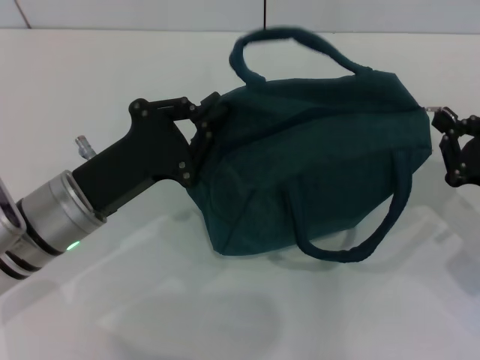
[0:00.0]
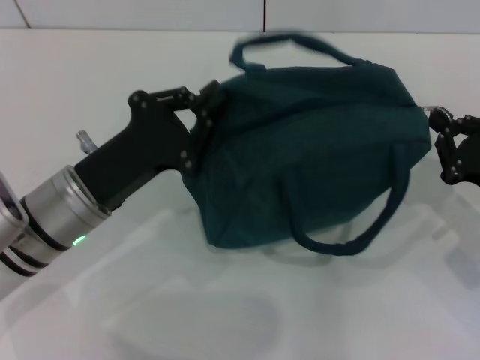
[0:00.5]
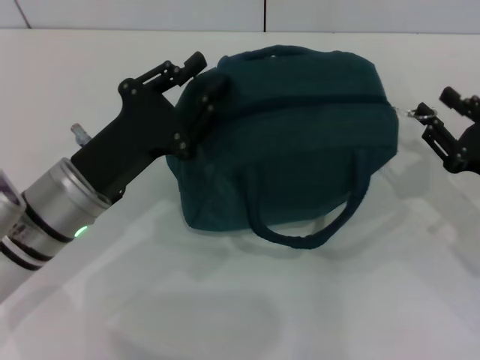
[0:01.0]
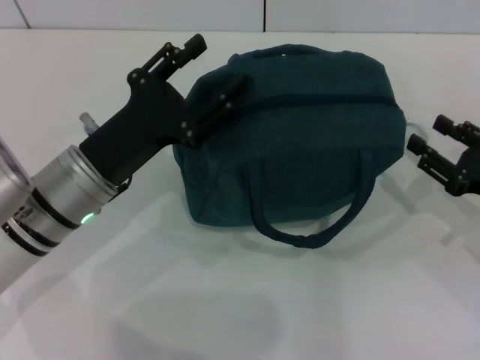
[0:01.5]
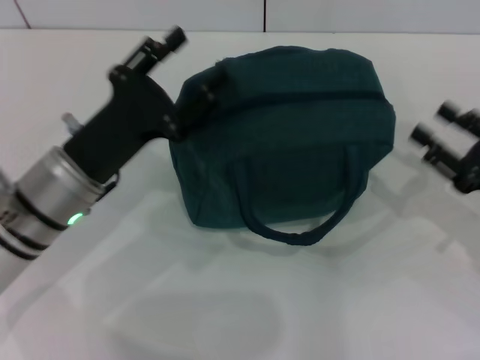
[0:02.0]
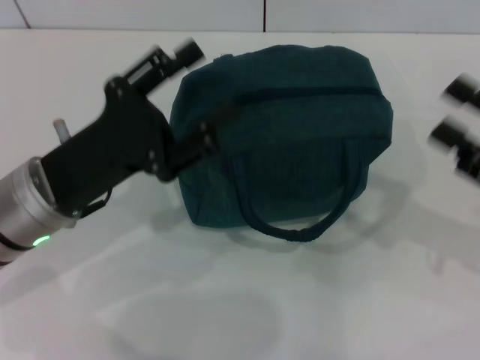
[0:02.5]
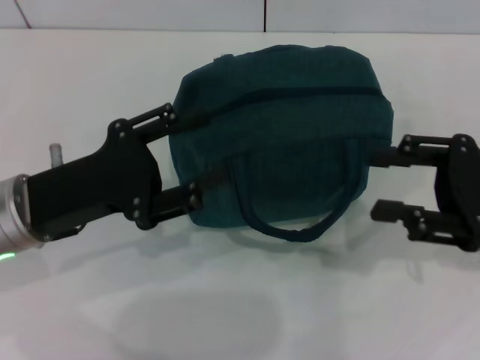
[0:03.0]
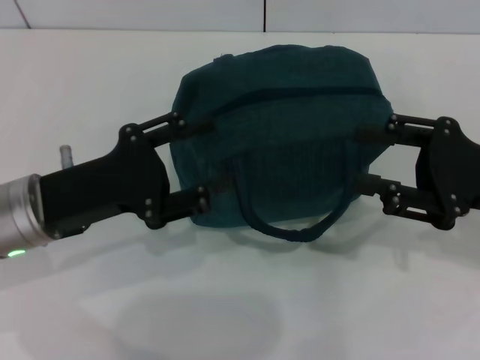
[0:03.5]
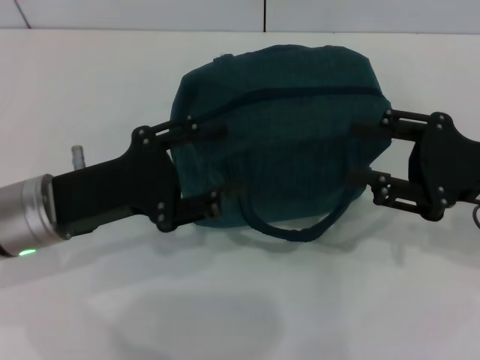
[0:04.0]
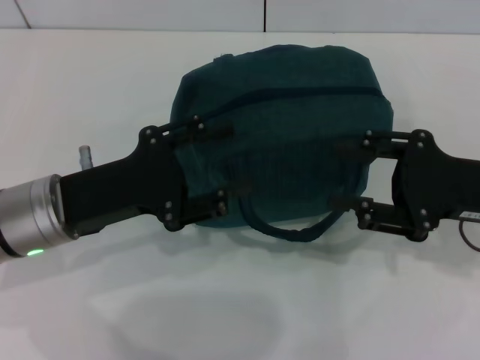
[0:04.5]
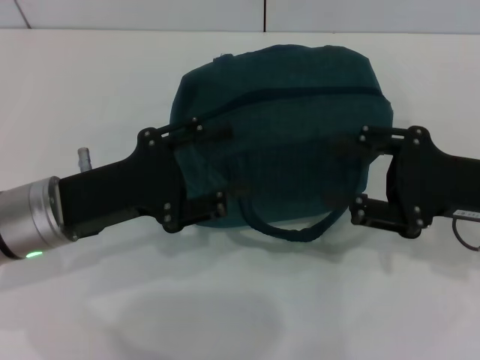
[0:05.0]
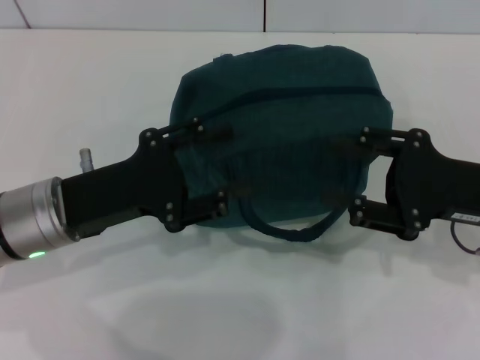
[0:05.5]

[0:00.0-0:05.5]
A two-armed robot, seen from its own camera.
0:00.0 to 0:02.0: The left gripper opens, while the right gripper opens.
0:02.0 to 0:03.5: The right gripper travels upward by roughly 5 cm.
0:03.5 to 0:05.5: The grippers move only a little.
